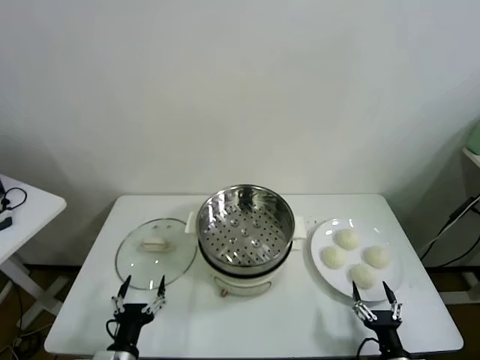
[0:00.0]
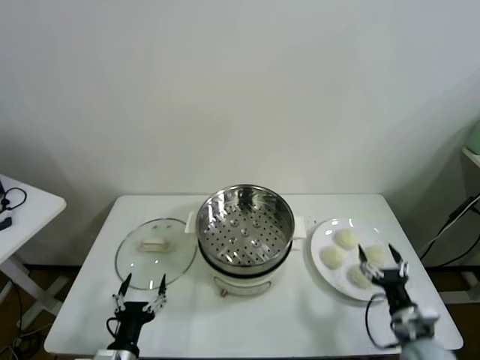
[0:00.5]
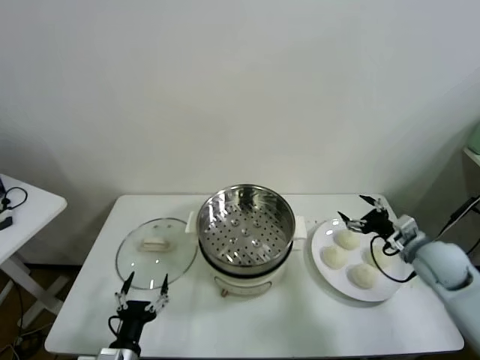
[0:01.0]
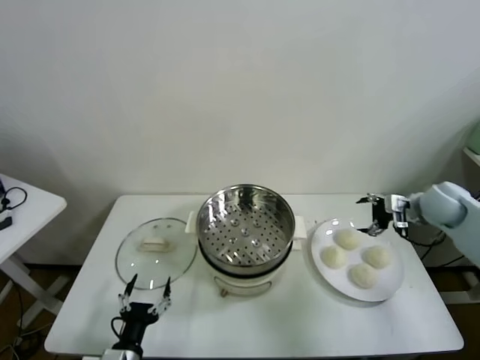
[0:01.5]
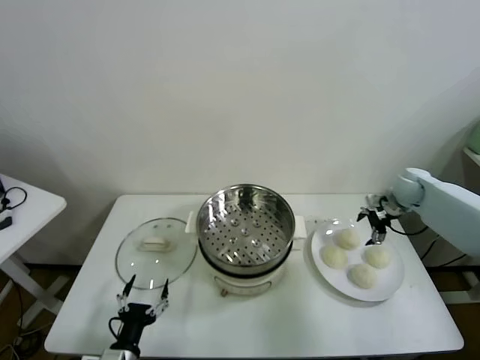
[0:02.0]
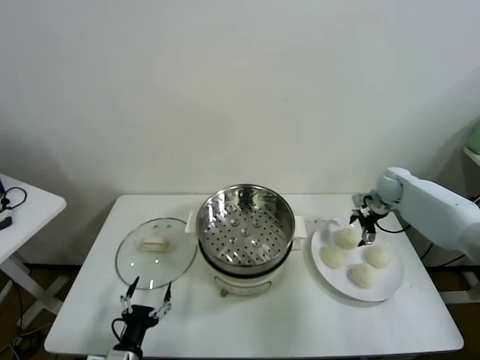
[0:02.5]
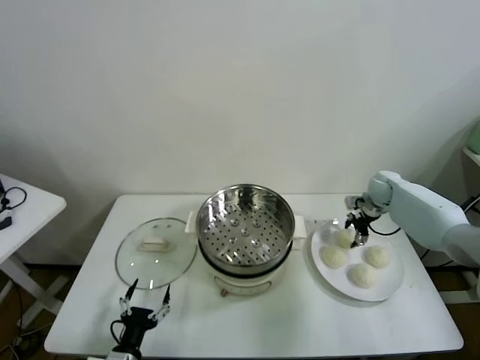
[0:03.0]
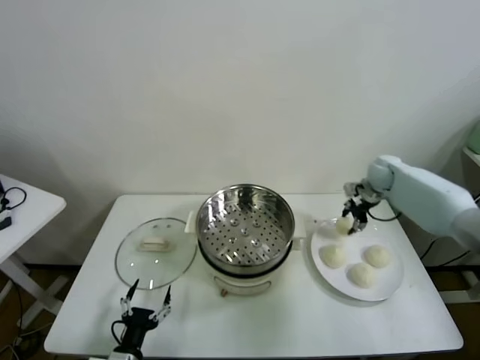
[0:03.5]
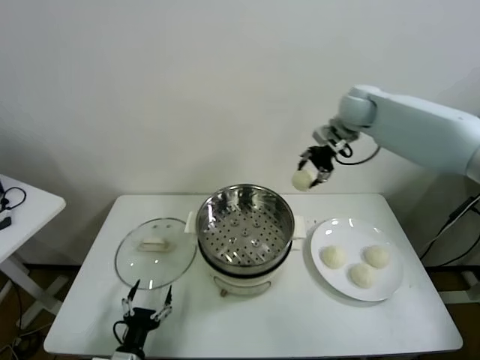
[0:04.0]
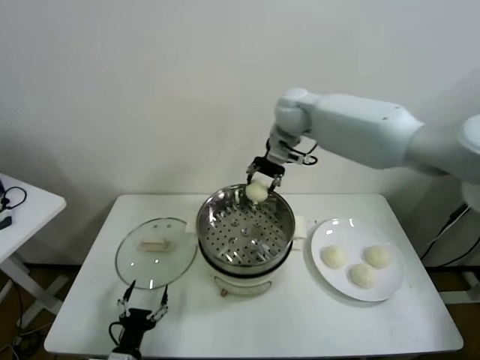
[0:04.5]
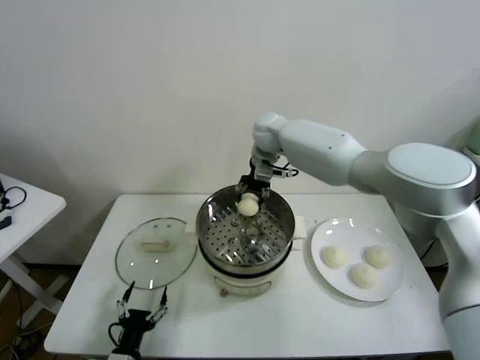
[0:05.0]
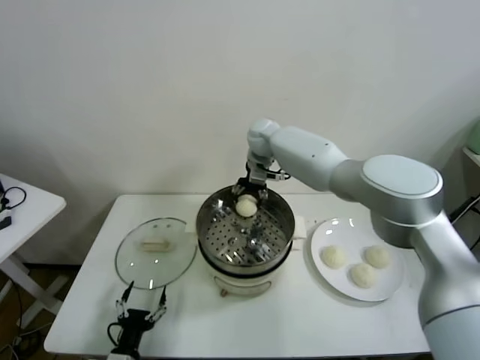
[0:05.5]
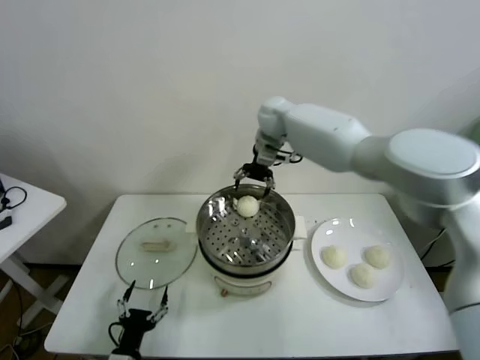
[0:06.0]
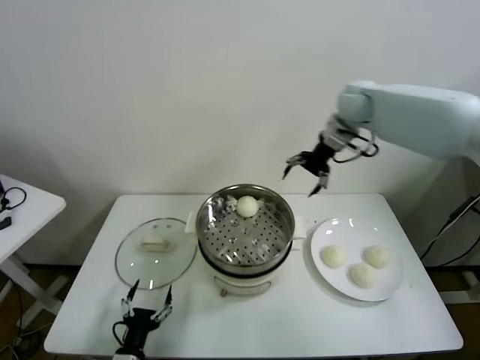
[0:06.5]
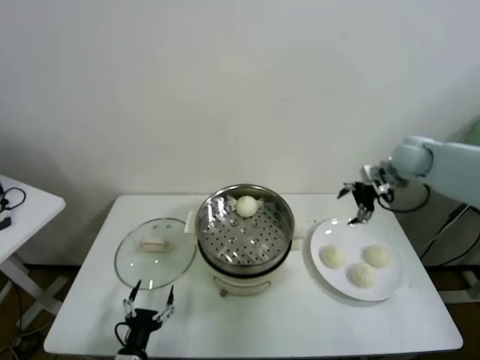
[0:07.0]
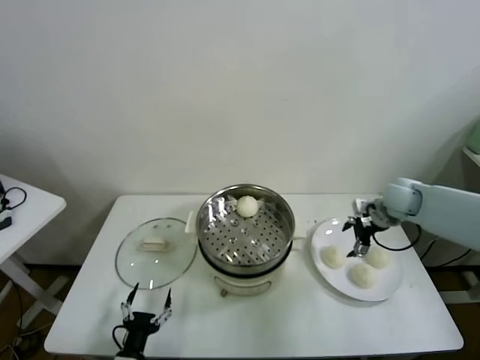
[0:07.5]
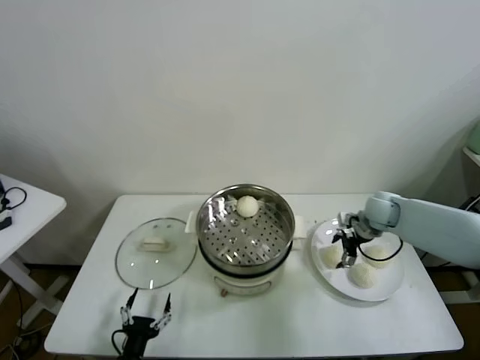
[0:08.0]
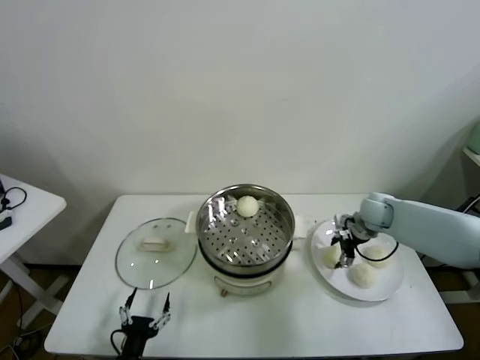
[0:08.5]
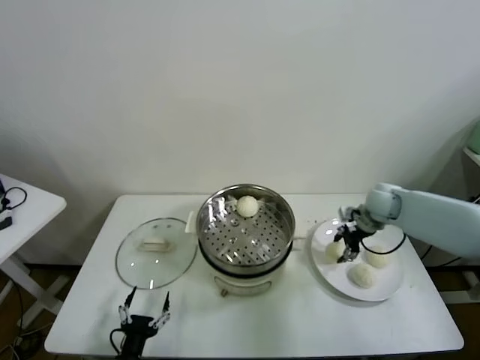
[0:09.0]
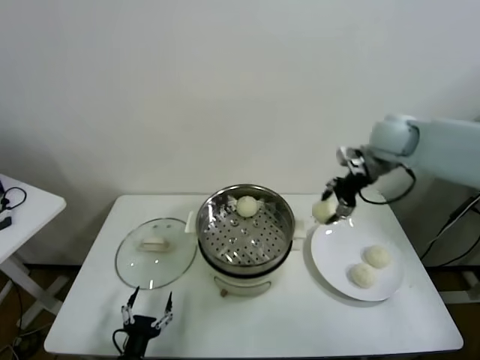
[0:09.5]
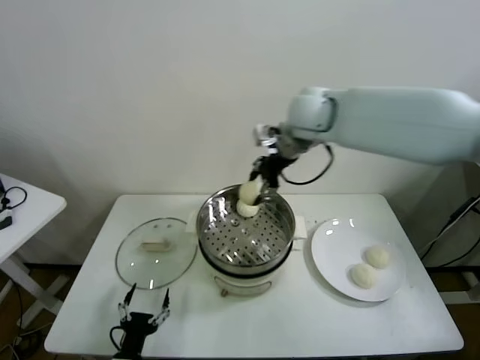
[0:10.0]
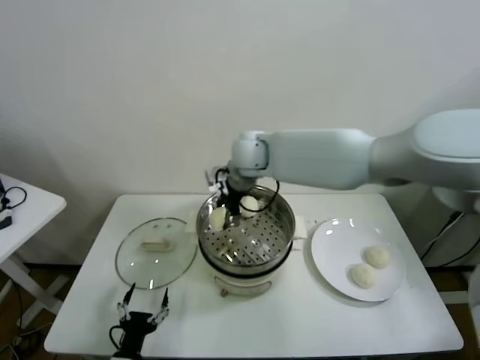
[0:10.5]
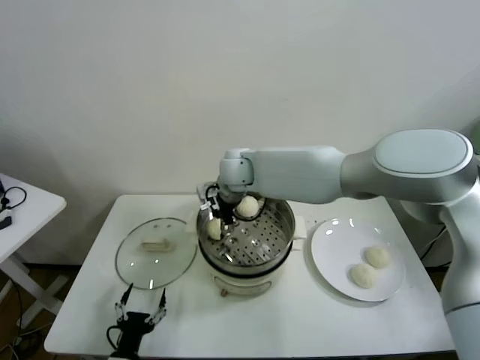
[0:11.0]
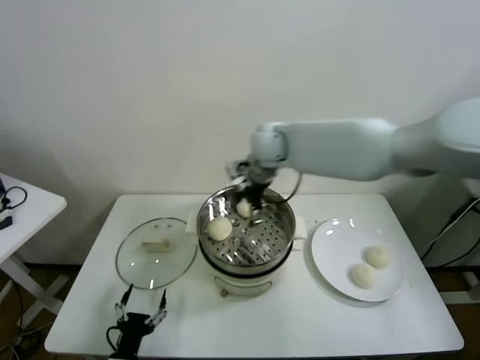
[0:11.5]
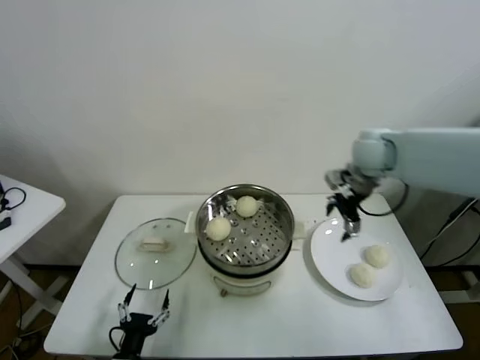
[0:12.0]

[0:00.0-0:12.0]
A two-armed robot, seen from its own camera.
Task of the whole recording: take steamed baozi put them in steamer.
Step, 0.0 to 2.5 s: Grasp the baozi in the plate with right gripper.
Step, 3.5 to 5.5 s: Place the baozi on the steamer with right gripper.
Step, 6.0 to 8.5 s: Grasp the baozi in the plate with right gripper.
Step, 9.0 to 11.0 s: Place the baozi on the steamer with right gripper.
2.0 to 4.0 s: The right gripper is displaced upward and to the left by roughly 30 cm, and closes.
4.0 to 6.0 s: The right gripper moves to the left, some 15 cm, and opens up.
6.0 to 8.0 s: The right gripper shifts approximately 35 cm to the right, downward and backward.
8.0 to 10.0 s: The right gripper heads upward and to the left, covering approximately 35 cm, and closes.
10.0 to 12.0 s: The right gripper heads to the right and downward, covering roughly 20 cm, and opens its fingers.

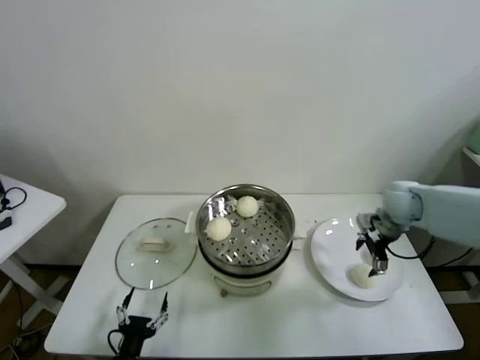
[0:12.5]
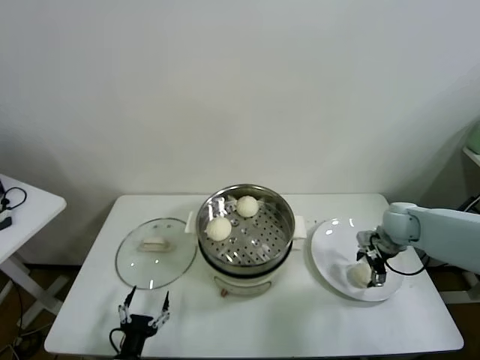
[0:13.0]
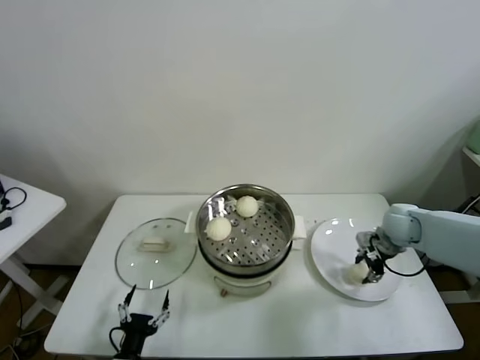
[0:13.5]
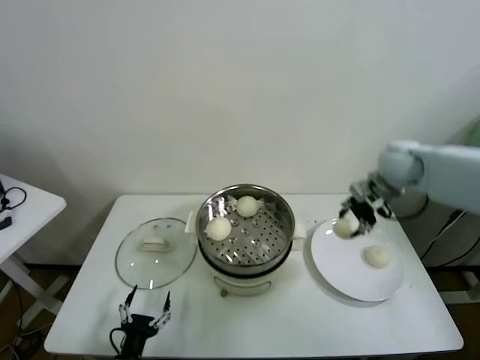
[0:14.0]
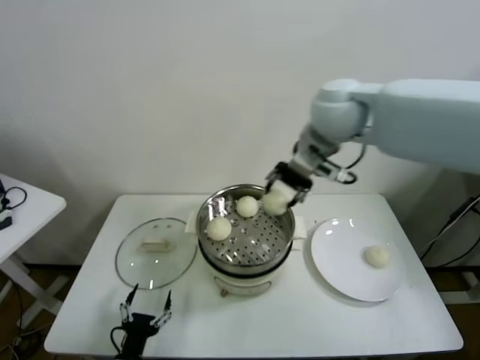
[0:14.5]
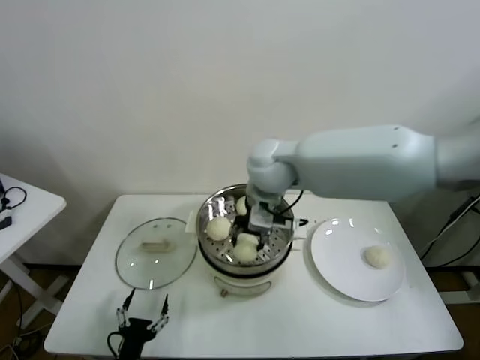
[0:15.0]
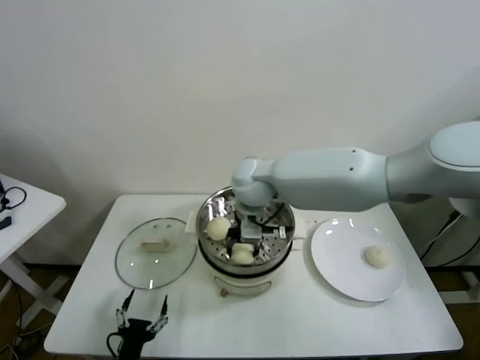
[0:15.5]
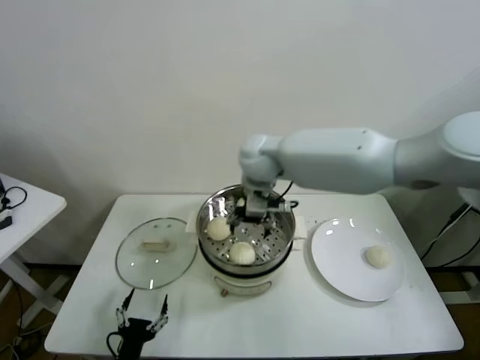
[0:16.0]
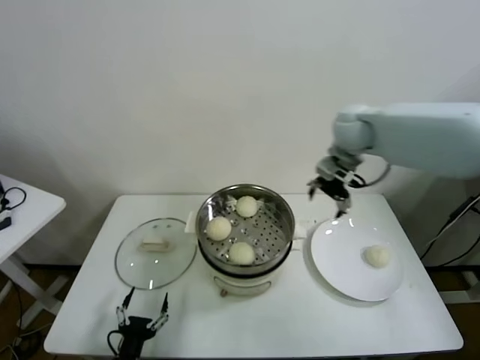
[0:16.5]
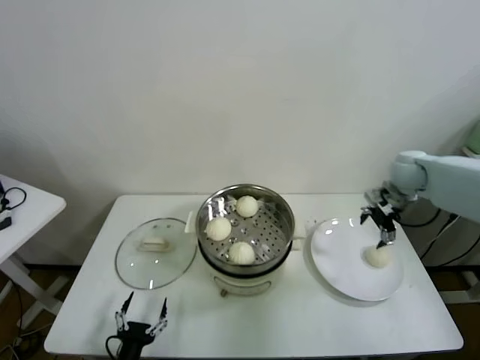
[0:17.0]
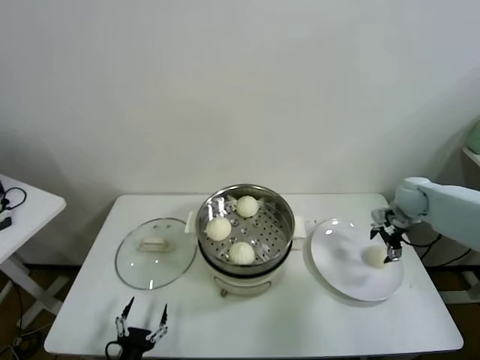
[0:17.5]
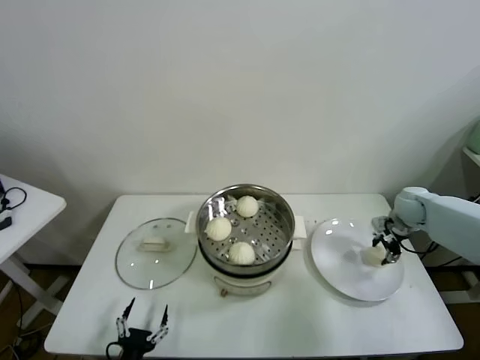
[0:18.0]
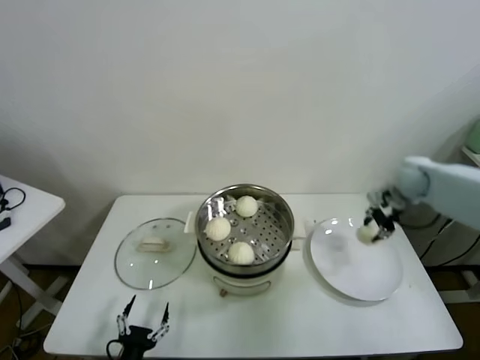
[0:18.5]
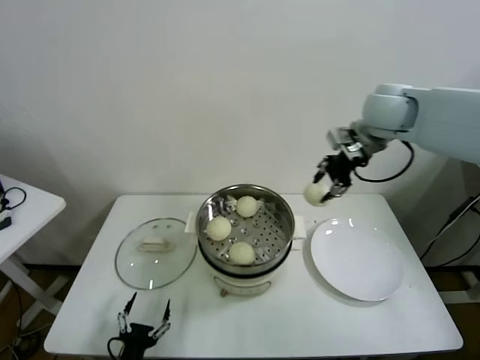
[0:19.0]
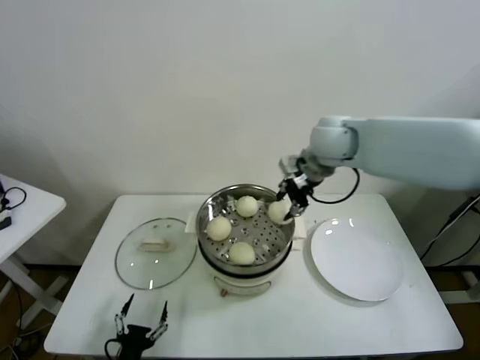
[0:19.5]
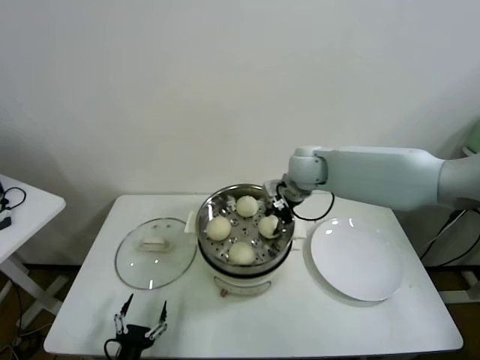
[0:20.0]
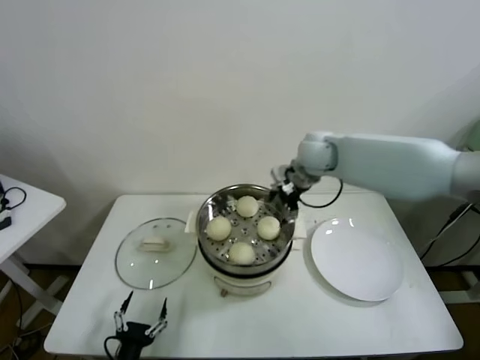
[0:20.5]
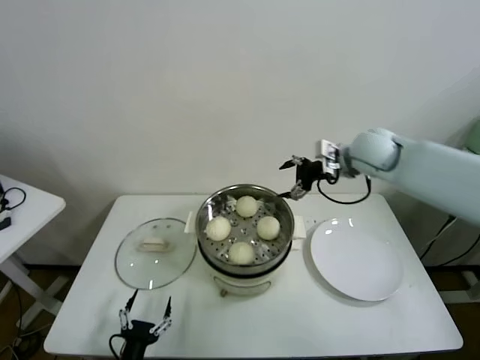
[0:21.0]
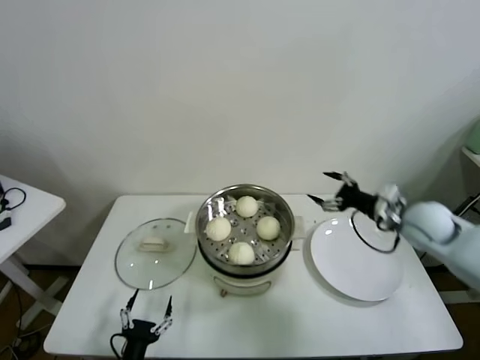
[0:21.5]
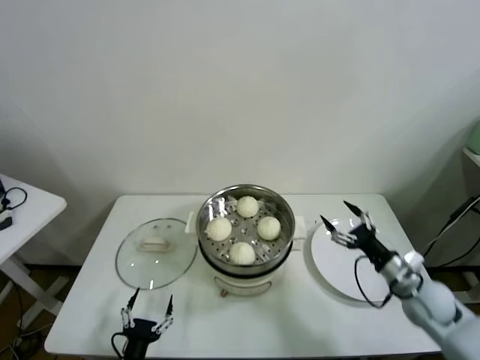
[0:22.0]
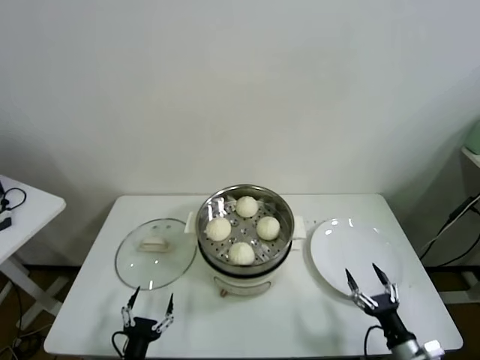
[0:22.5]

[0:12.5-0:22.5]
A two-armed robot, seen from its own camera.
Task of the whole recording: take steamed baozi put them in steamer.
Step, 13.5 to 15.5 s: Place the baozi on the steamer with right gripper.
Step, 16.0 to 17.5 s: Grasp the baozi in the plate with right gripper.
Step, 18.0 to 20.0 s: Place the baozi on the steamer with right gripper.
12.5 to 14.5 s: The right gripper travels upward and to the left by approximately 35 cm, and closes up.
14.5 to 16.5 s: The right gripper shifts about 15 cm downward, to the right and forward, and opens.
16.5 to 18.5 s: The right gripper heads to the right and downward, covering about 25 cm, and closes up.
18.5 to 20.5 s: The right gripper is displaced to the left by some 25 cm, and opens its fingers.
20.5 to 22.5 s: The right gripper goes about 50 cm backward, downward and to the right.

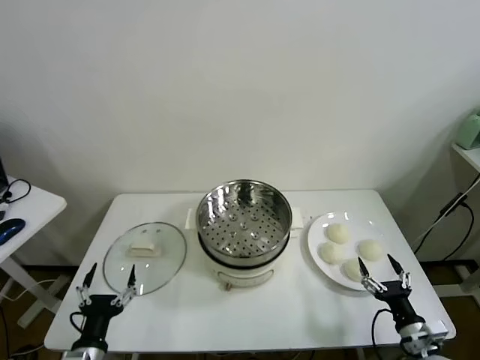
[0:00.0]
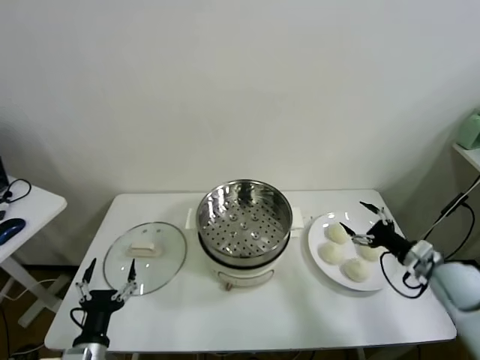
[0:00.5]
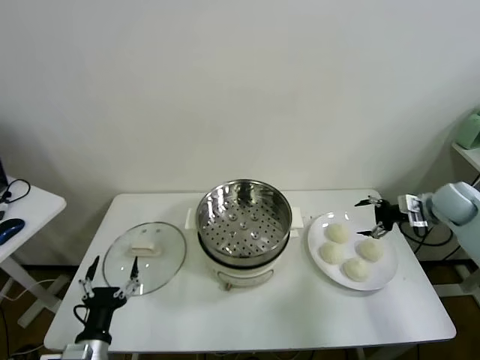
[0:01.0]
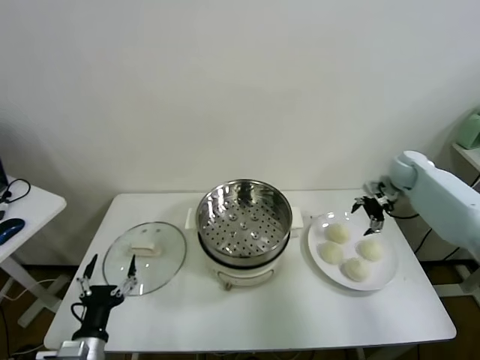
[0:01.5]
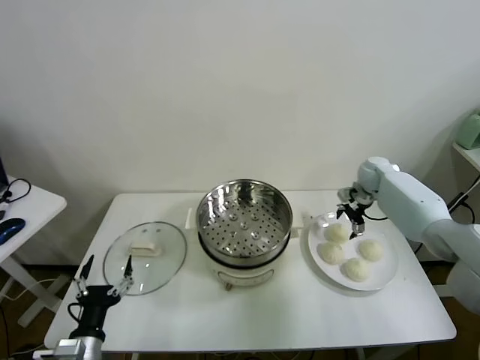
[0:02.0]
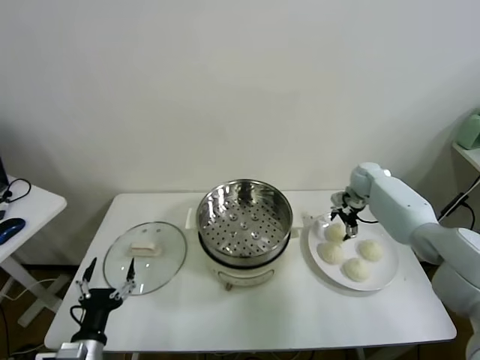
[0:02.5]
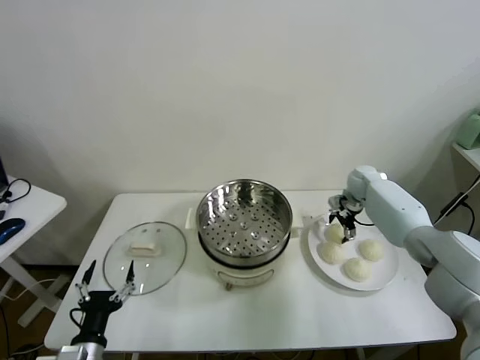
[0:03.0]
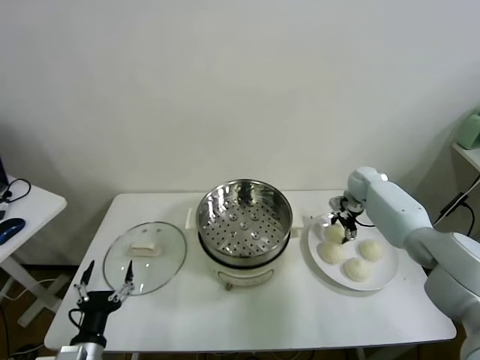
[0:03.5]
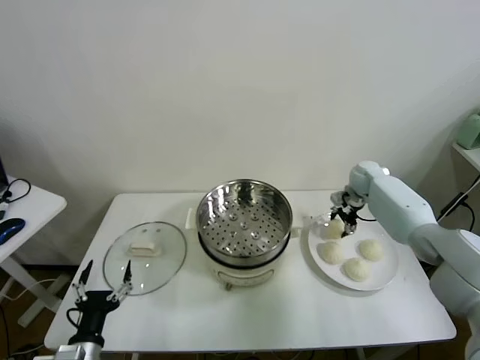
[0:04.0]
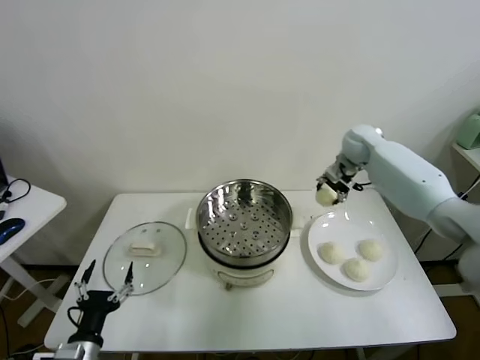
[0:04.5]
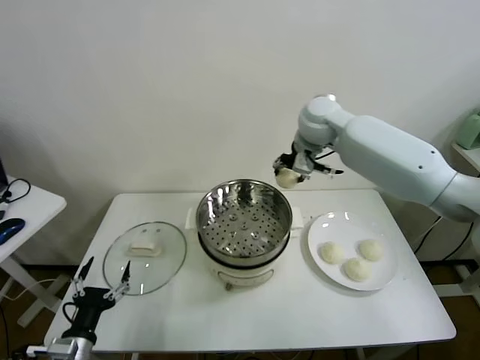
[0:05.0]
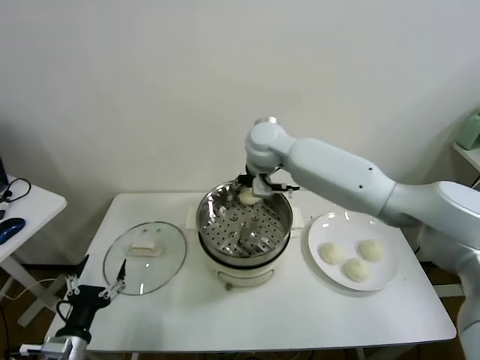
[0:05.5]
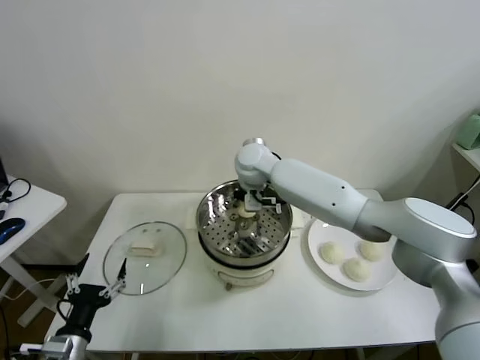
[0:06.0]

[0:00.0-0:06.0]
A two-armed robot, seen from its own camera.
Task of the whole recording: take steamed baozi put them in steamer.
Step, 0.0 to 3.0 s: Grasp the baozi in the plate with right gripper.
2.0 to 4.0 s: The right gripper closes.
4.0 to 6.0 s: The right gripper goes about 35 cm to the left.
